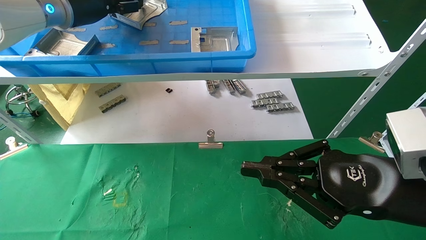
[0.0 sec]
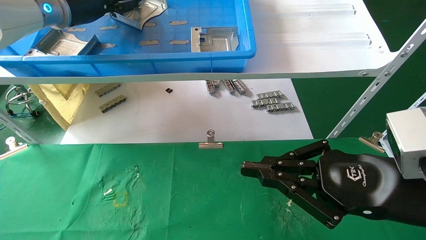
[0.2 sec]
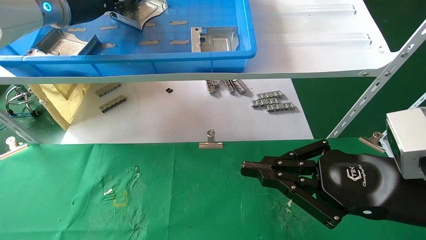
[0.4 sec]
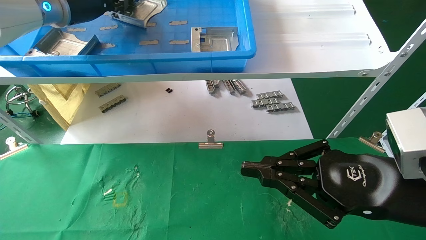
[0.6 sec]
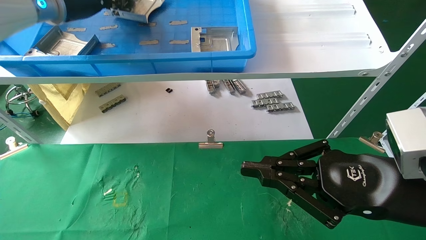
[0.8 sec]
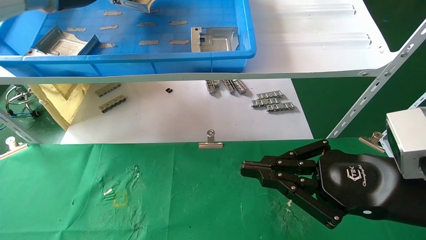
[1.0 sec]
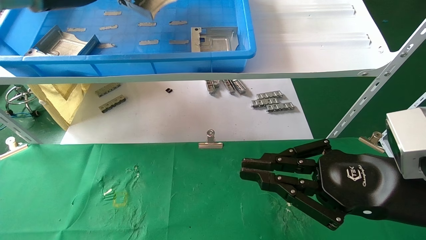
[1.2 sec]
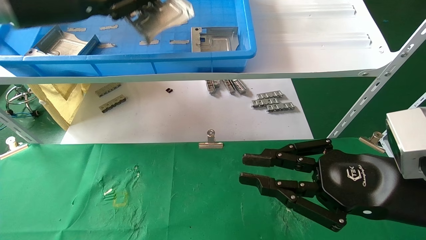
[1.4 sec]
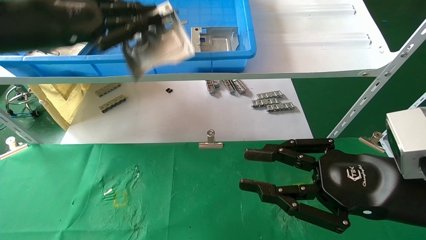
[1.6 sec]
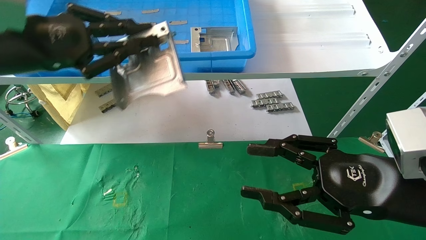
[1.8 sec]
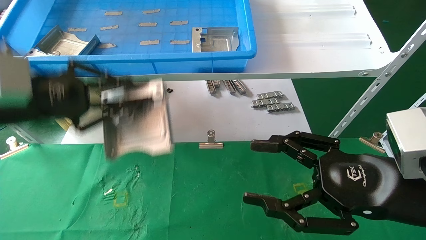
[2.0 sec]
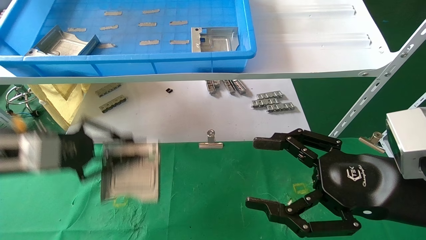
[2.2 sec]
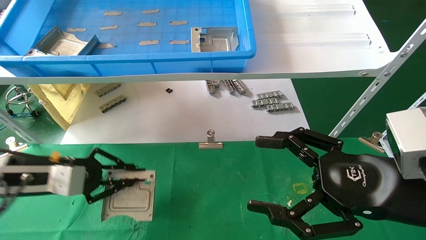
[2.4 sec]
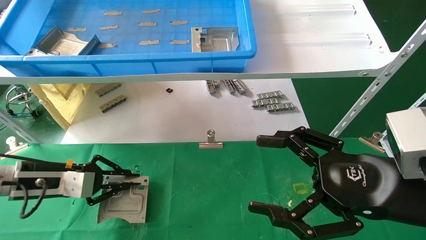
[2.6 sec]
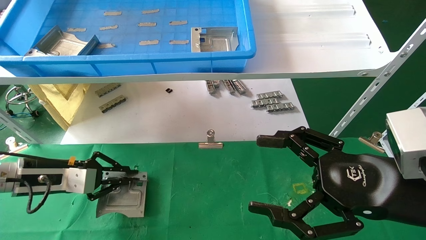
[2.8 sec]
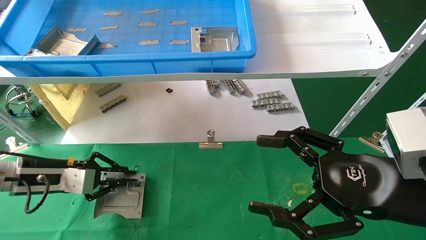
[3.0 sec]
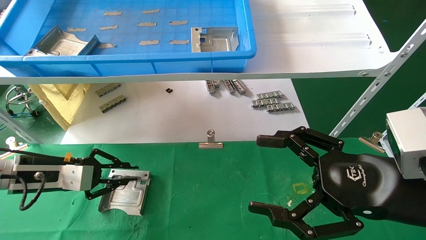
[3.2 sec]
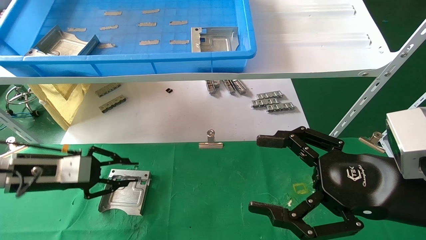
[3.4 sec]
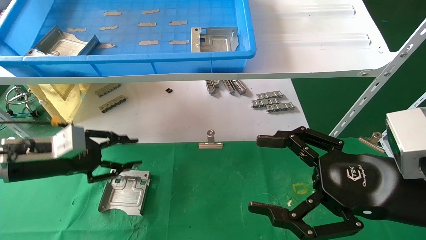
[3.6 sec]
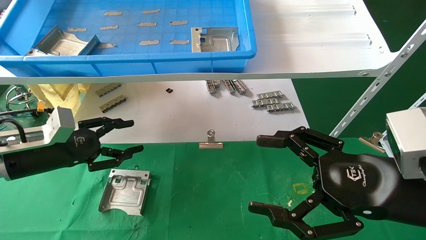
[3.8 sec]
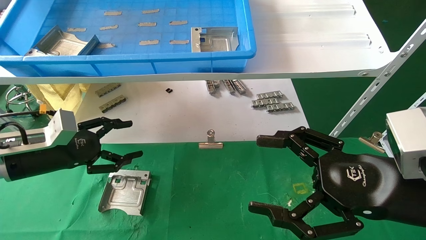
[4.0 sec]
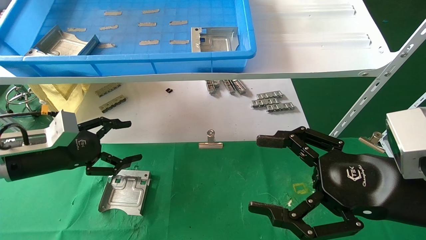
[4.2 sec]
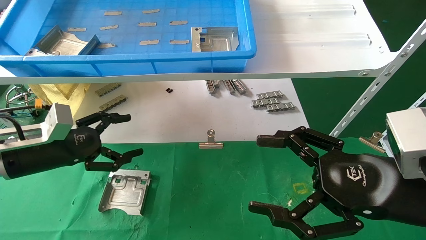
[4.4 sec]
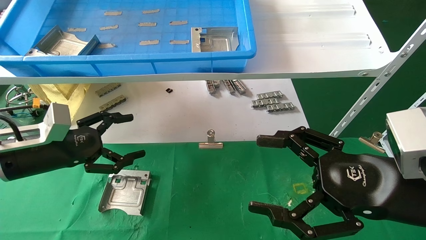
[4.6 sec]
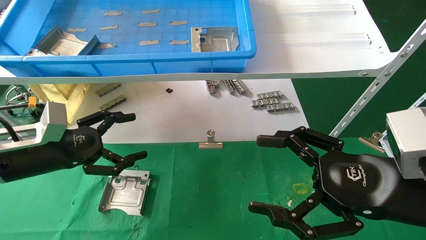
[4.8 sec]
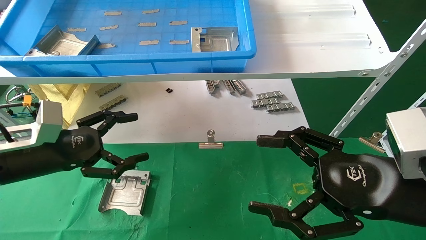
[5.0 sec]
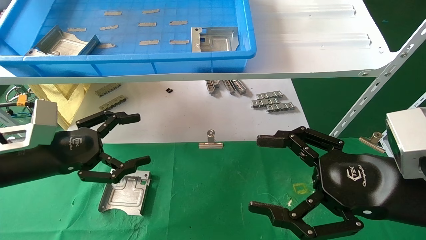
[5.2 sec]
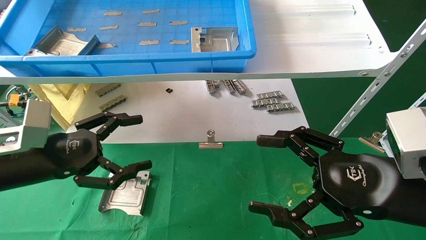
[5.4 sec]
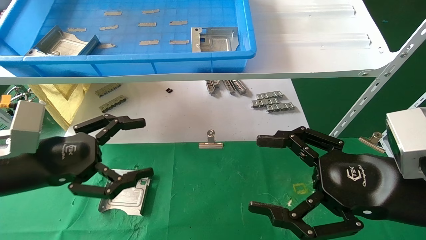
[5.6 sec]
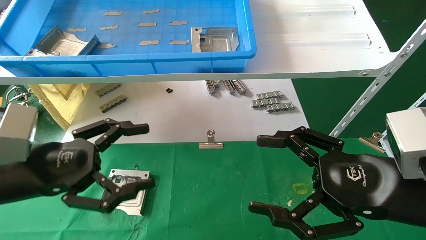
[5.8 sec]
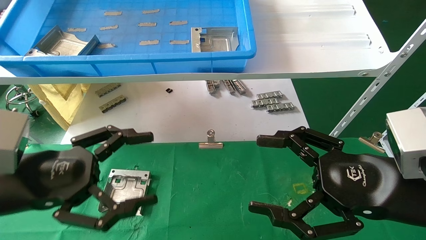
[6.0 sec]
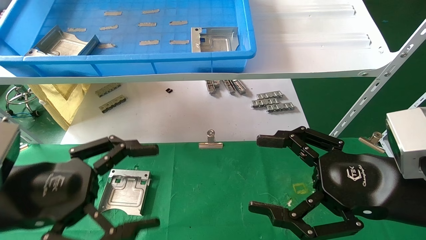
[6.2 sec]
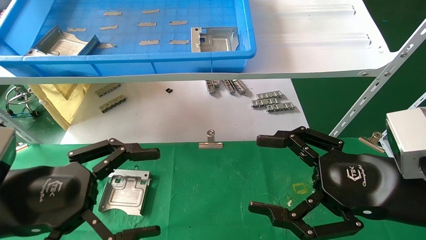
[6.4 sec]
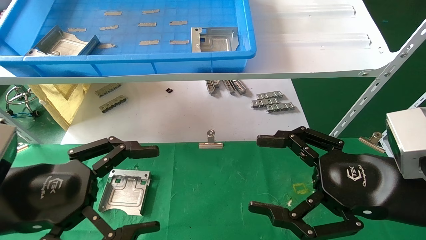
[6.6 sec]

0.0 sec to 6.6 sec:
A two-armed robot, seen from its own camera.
Task of the whole recording: use the mechanical arm to pick up the parts and place them on the table.
Step, 0.8 sec to 3.6 sec: Place the hard drive bracket into the box.
0.0 sec to 1.6 sec: The left gripper is displaced backward by approximately 15 cm, and closes its fingers.
1.6 sec to 3.2 sec: The right gripper opens its fingers. The left gripper travels downward by approximately 25 cm.
3.2 sec to 5.0 sec: The left gripper changes place by about 5 cm, and opens.
5.0 sec to 6.6 sec: The left gripper goes some 15 cm backward and to the right.
